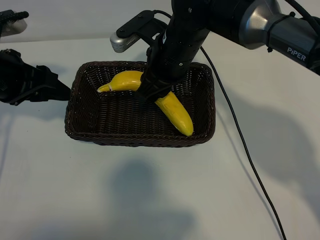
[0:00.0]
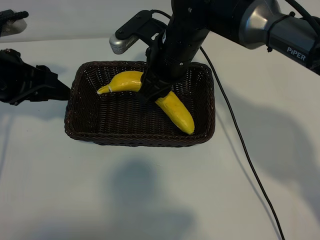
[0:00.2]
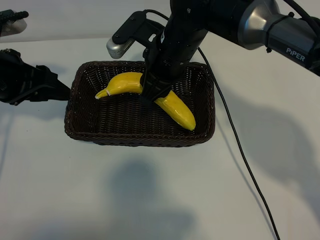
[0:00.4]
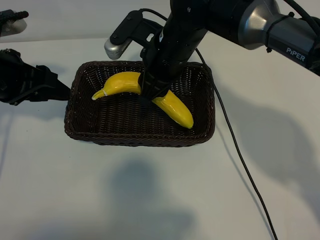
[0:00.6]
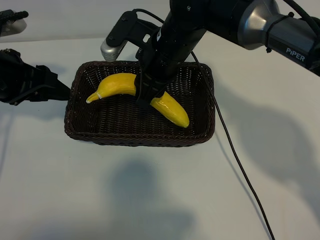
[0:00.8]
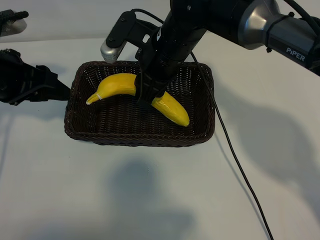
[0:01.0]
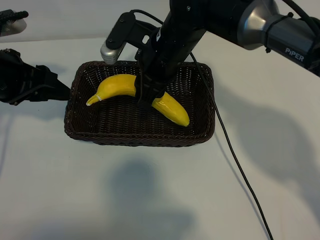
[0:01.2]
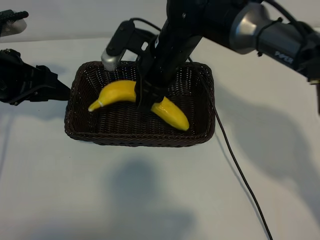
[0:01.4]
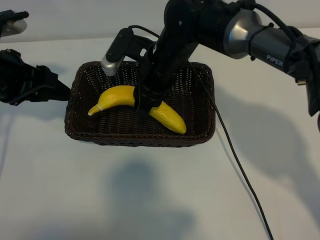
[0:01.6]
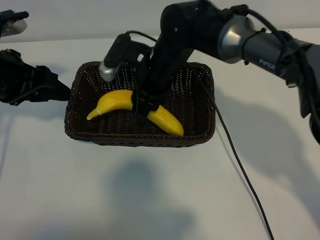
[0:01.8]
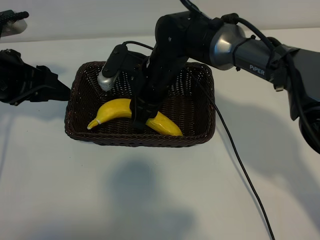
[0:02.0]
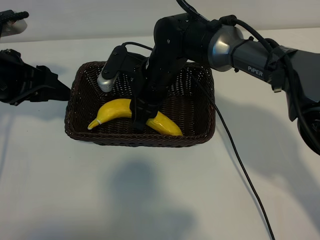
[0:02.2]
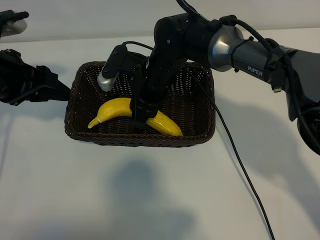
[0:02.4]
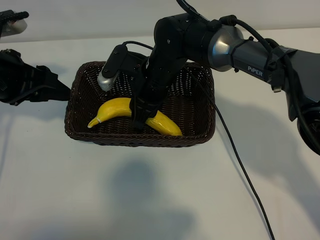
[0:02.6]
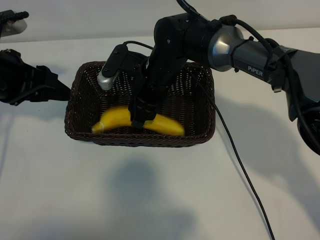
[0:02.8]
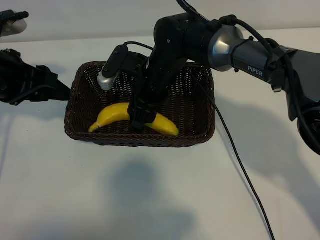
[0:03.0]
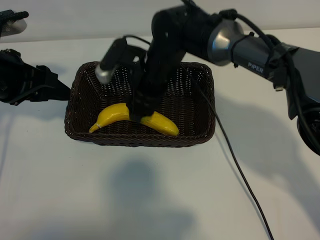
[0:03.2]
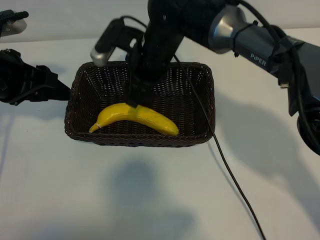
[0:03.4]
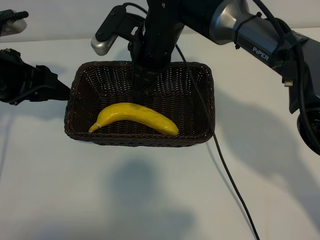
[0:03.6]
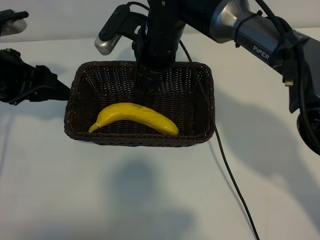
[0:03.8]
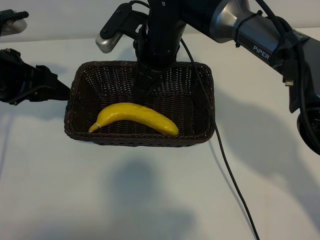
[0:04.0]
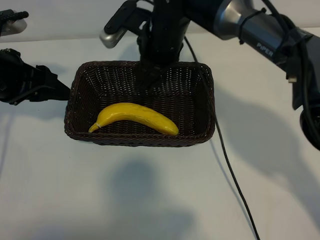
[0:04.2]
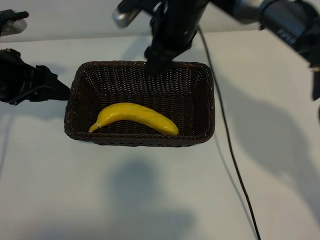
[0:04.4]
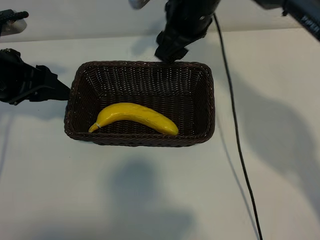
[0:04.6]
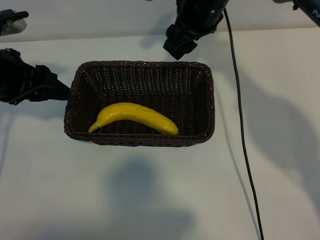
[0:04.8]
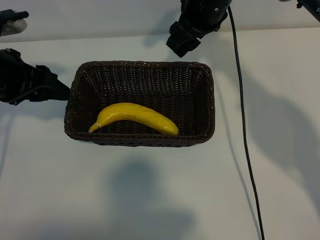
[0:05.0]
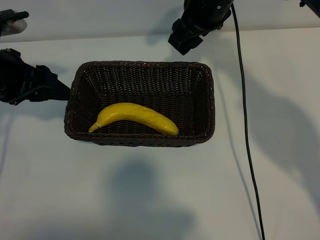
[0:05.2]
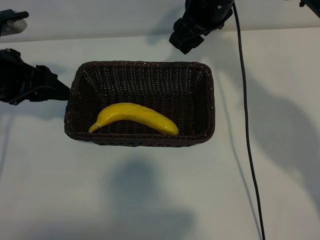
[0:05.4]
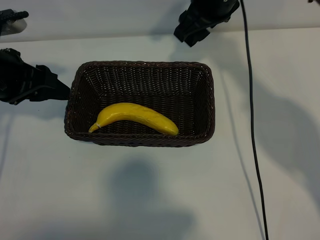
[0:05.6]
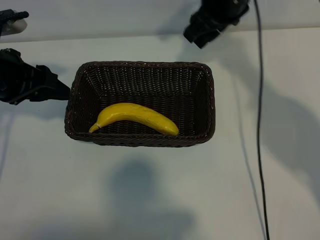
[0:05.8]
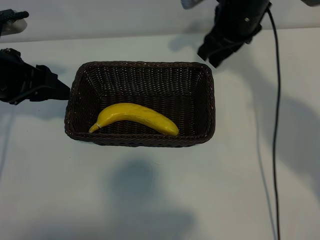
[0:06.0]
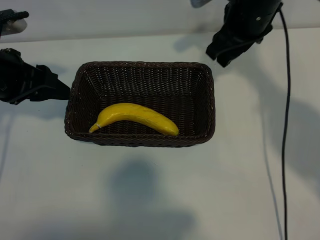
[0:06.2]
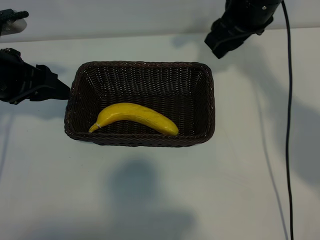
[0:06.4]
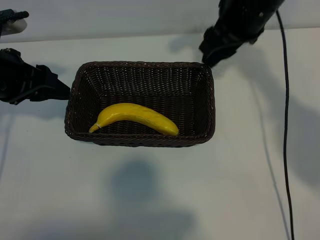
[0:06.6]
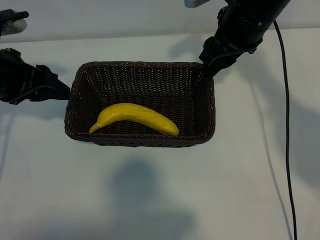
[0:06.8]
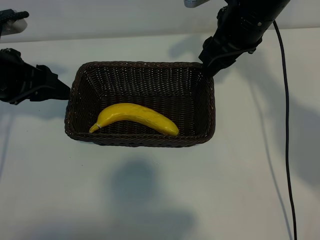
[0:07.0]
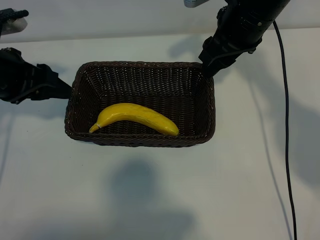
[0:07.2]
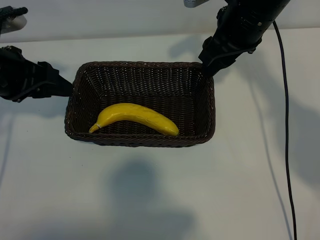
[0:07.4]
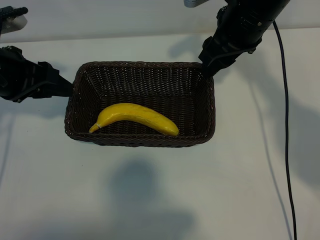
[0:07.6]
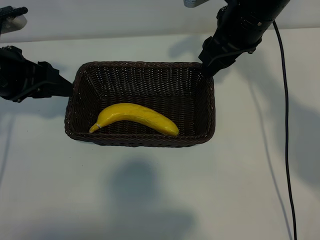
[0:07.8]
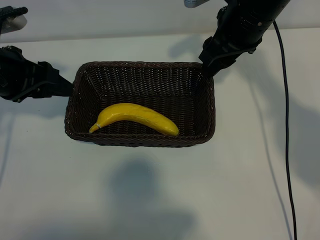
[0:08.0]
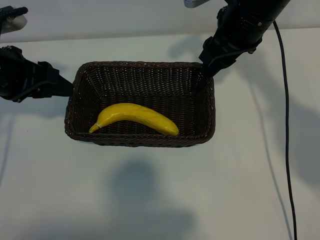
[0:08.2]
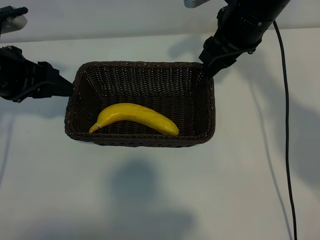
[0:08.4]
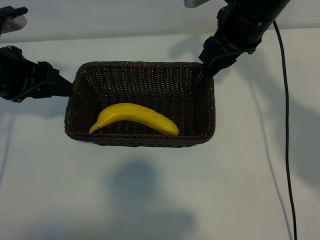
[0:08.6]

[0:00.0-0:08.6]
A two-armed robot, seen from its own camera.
Task of the whole recording: pick up the banana and put it into the basket.
Step, 0:00.0 to 0:03.2: Place the banana in the basket with right gripper.

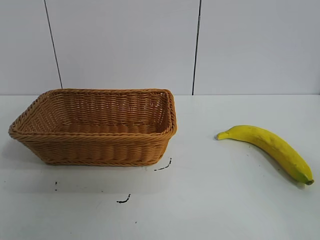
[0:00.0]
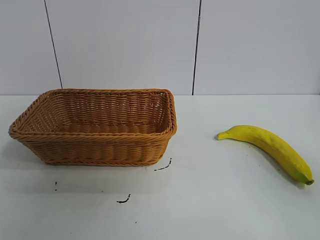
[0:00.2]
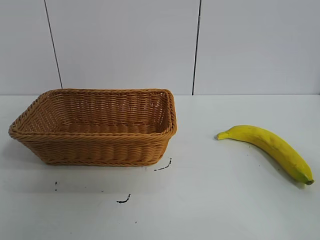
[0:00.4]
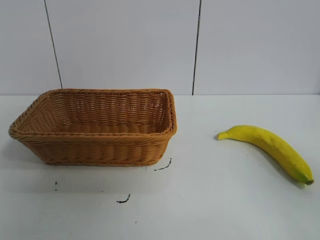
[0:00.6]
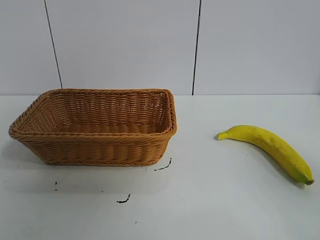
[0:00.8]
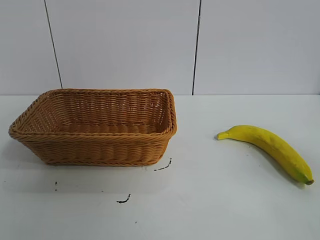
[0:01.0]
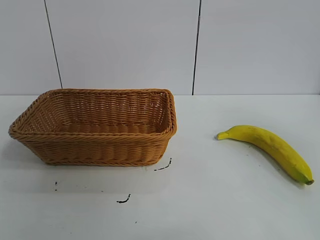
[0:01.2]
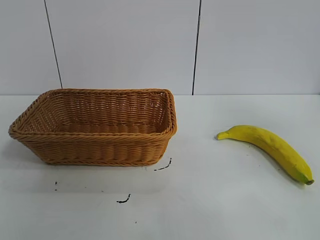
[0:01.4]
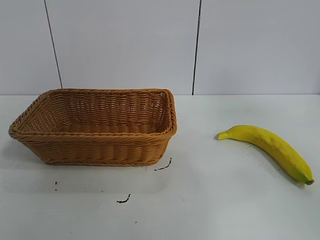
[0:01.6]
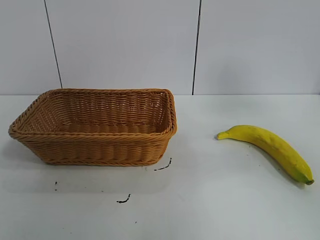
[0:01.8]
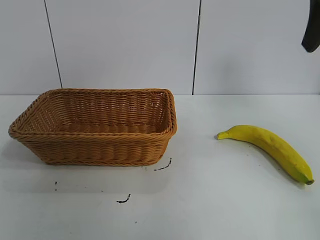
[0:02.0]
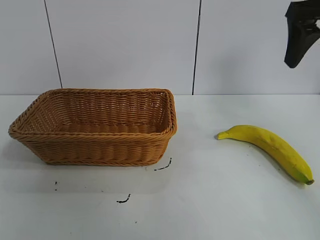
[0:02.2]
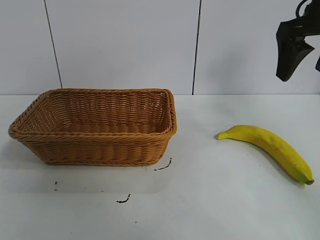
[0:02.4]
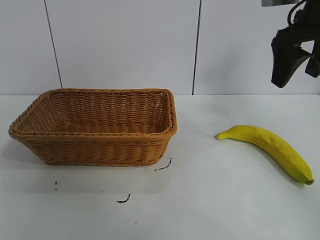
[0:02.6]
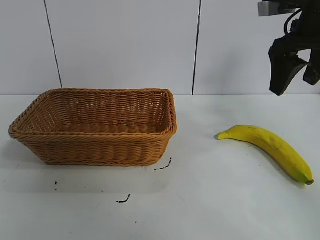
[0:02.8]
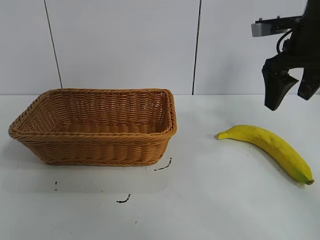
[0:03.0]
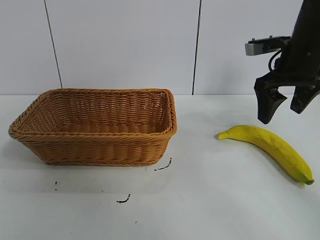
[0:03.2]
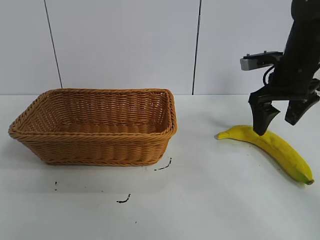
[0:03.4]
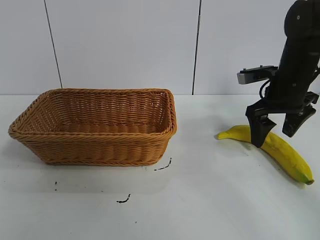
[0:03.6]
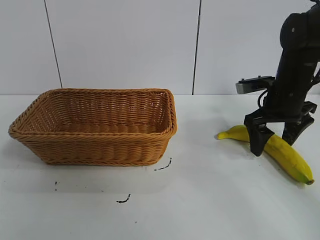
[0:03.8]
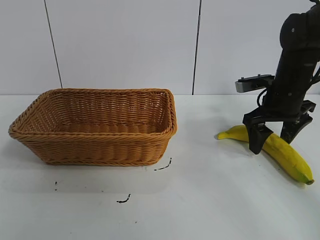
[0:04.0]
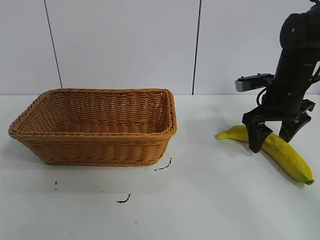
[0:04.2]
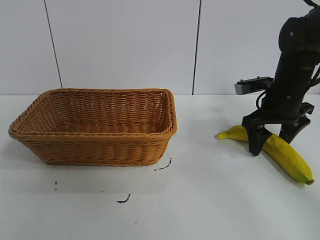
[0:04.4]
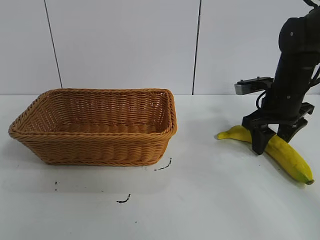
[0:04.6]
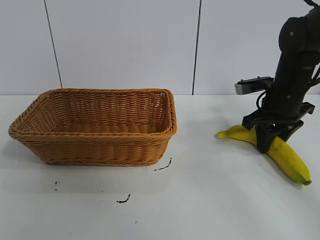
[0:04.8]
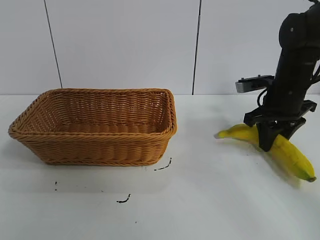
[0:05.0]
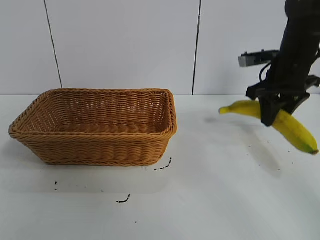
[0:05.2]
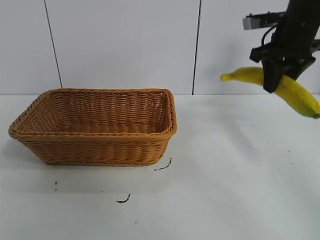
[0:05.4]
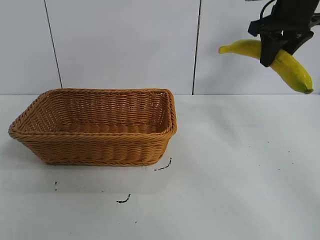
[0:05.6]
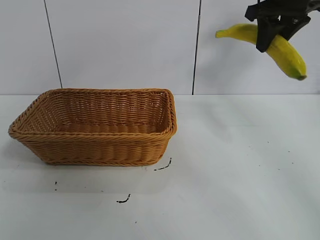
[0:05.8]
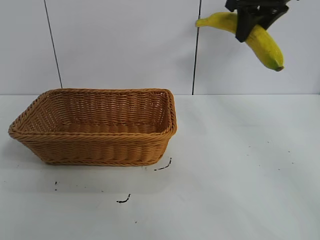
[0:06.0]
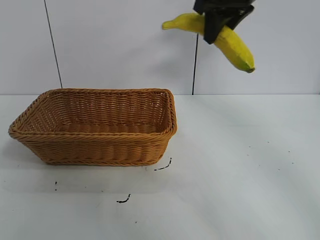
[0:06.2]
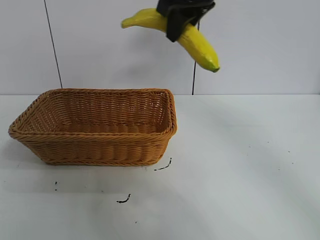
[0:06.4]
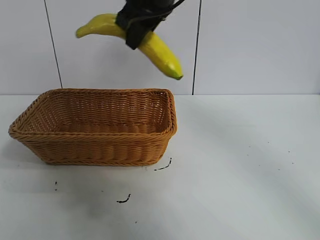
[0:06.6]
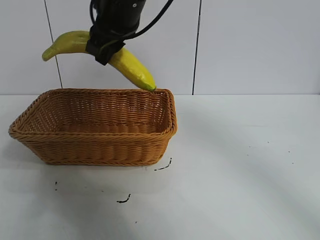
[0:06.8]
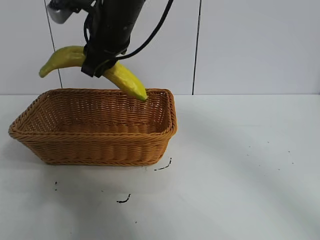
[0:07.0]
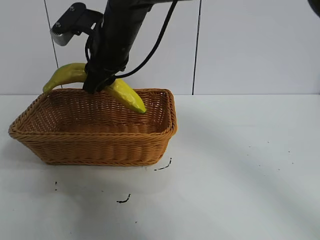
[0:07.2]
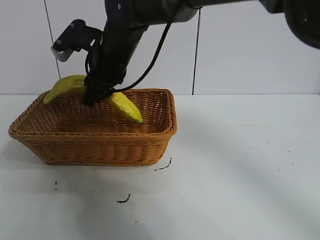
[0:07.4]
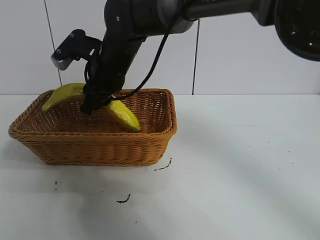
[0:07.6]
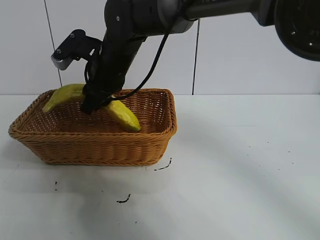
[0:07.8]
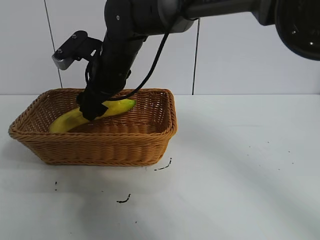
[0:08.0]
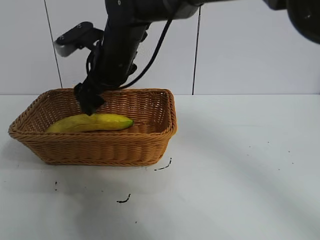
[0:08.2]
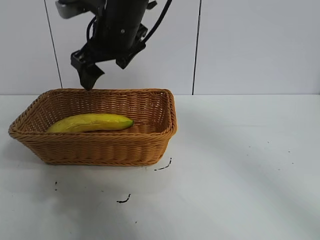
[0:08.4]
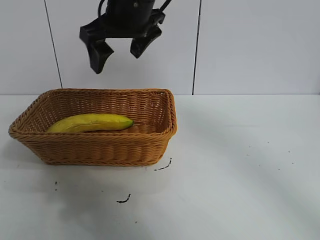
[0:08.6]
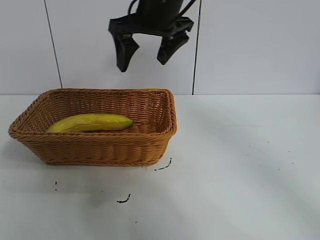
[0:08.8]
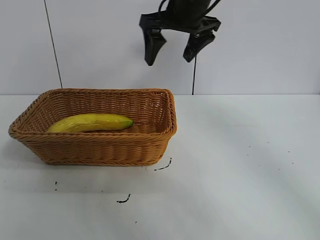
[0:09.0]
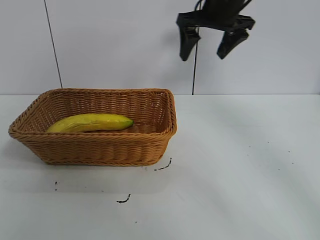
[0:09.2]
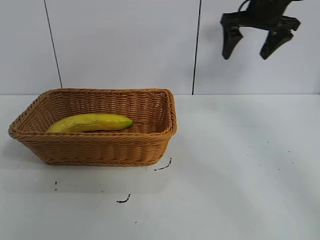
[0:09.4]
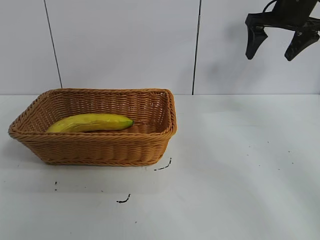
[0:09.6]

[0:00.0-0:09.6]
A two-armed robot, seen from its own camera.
Task of the whole recording: pick up the banana and put it into the basket.
Step, 0:00.8 to 0:04.8: Grasp the banana with right gripper.
Step, 0:05.0 to 0:08.2: Place the banana in the basket with right gripper.
